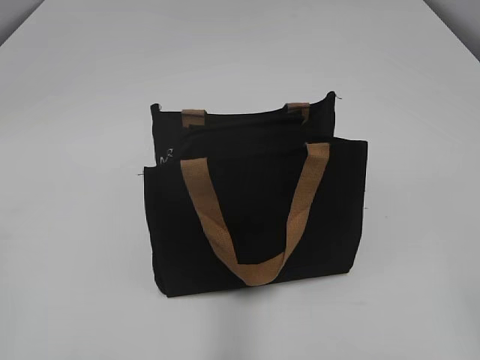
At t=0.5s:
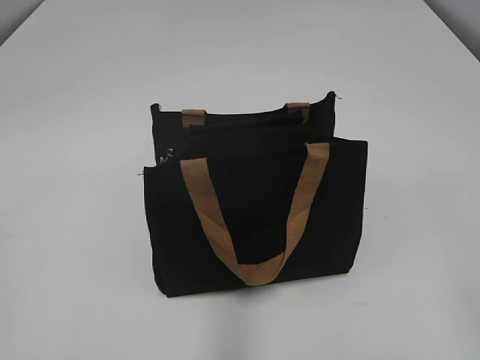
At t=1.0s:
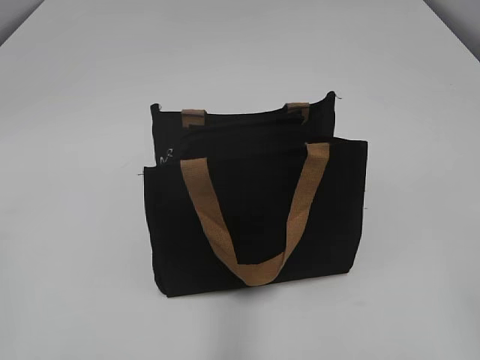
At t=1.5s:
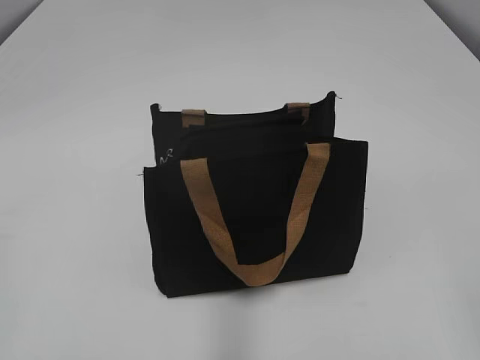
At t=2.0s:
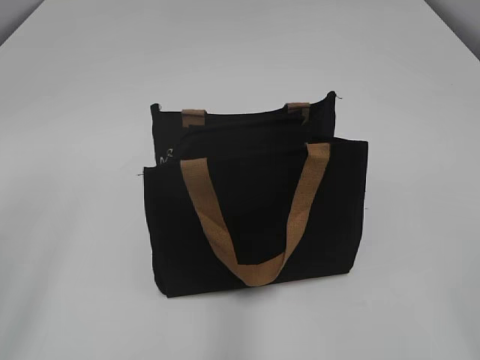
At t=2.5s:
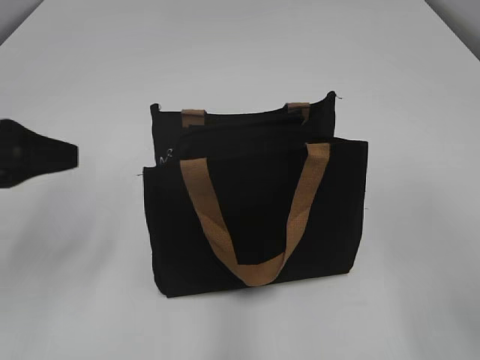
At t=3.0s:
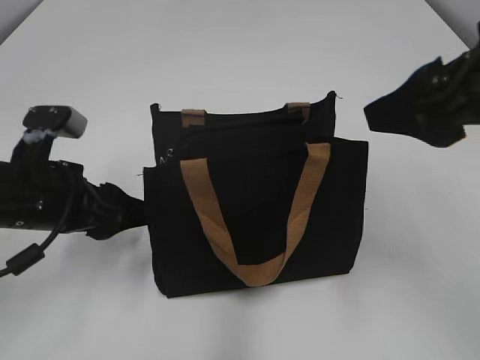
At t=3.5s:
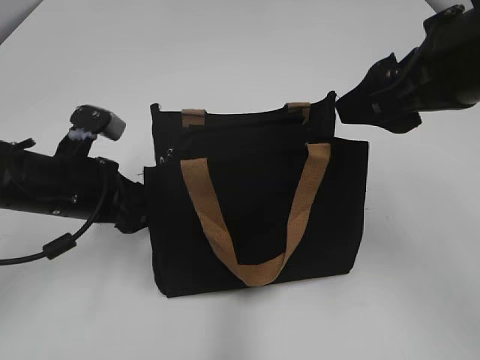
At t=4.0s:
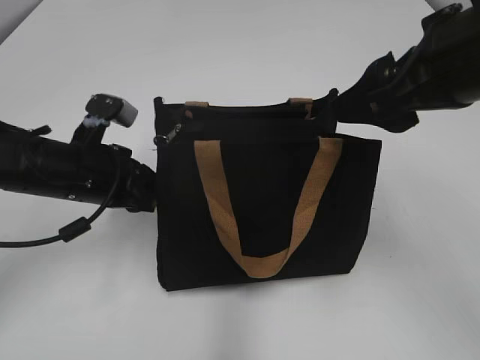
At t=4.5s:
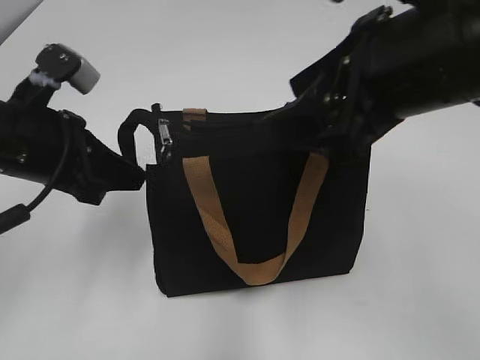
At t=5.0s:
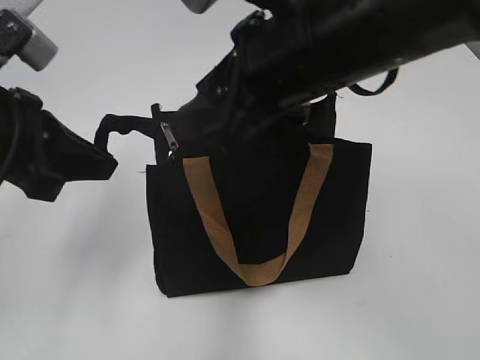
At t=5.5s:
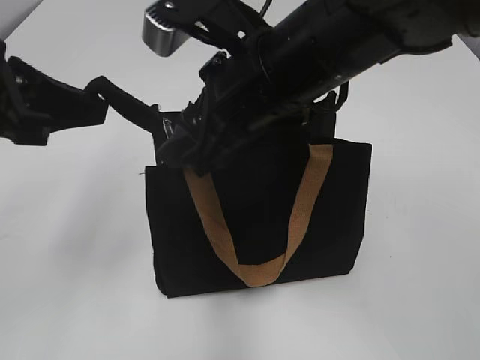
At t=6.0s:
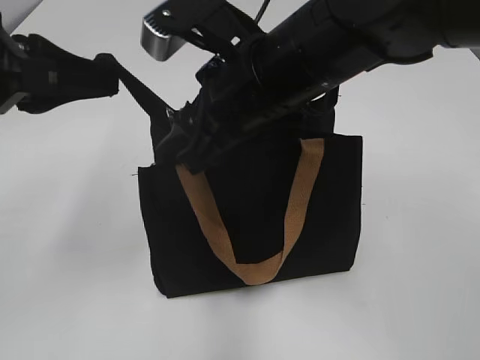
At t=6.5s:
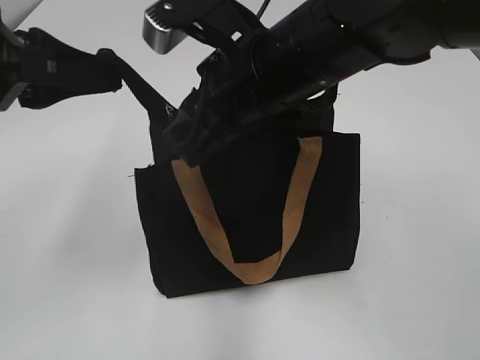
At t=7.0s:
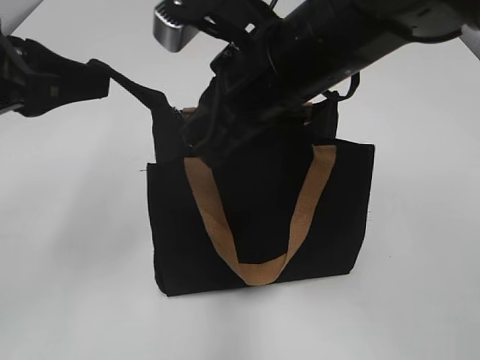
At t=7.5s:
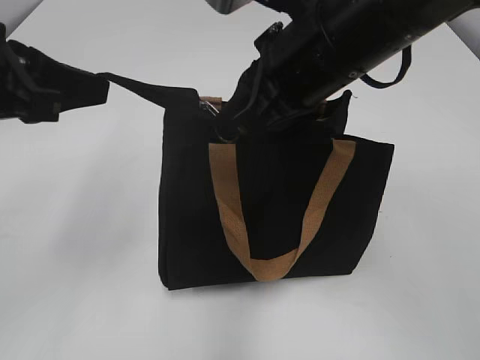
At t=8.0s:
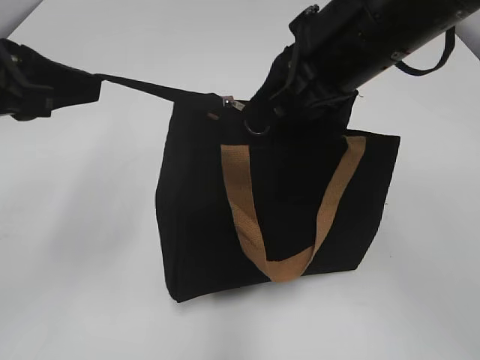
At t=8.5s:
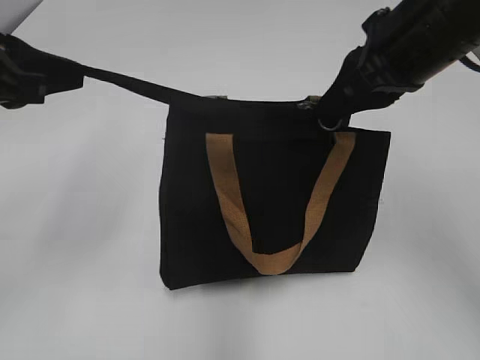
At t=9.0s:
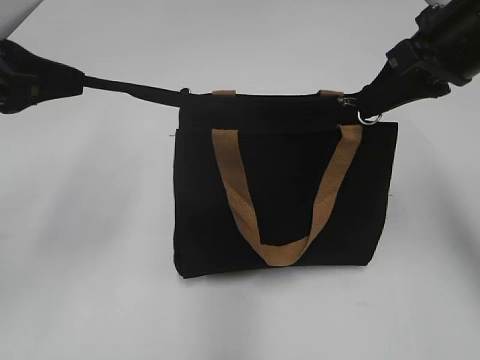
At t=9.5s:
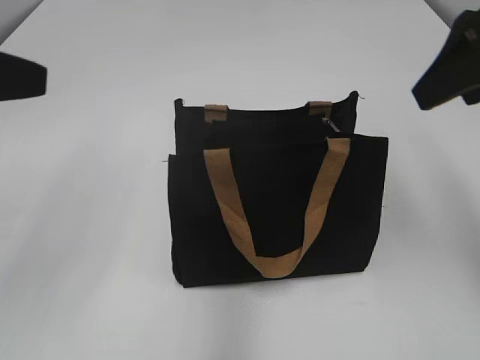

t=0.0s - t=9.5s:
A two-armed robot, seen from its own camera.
Step, t=0.0s - t=9.0s: Zip up the bag with your right hand.
t=2.0s - t=4.0s: The left gripper shifts approximately 30 cm forward, downward and to the right, and closes its fingers, while the right gripper travels forward and to the left by about 25 cm.
t=4.0s - t=5.5s: The left gripper shifts roughly 15 cm upward and backward; the right gripper is displaced to the left by some 15 cm.
t=5.5s - t=7.5s: The right gripper closes its fingers.
t=7.5s - t=9.5s: The left gripper ends up some 5 cm from where it was, and opens. The right gripper moves to the right, about 15 cm, and opens up.

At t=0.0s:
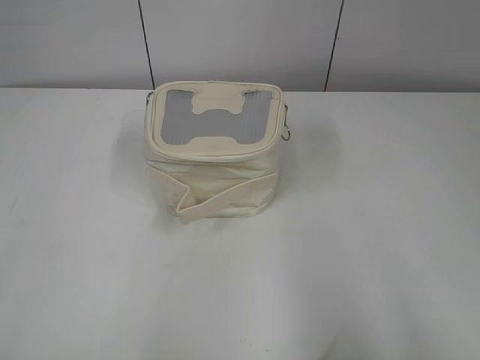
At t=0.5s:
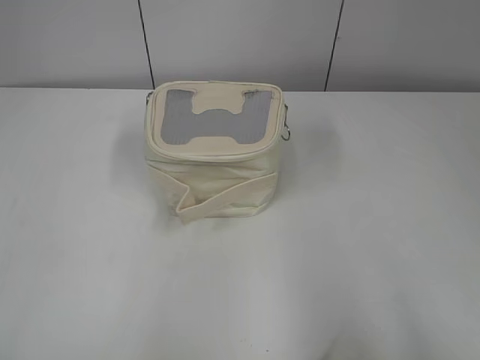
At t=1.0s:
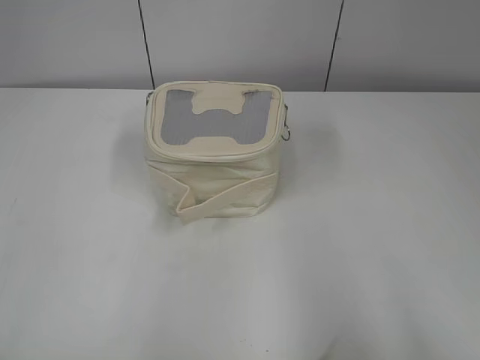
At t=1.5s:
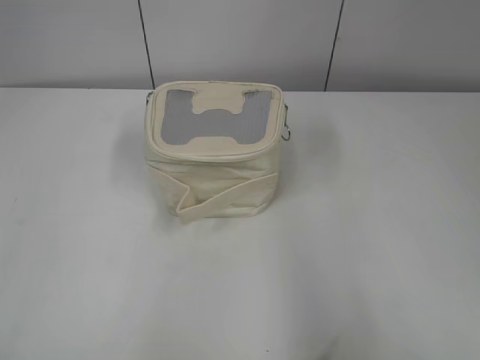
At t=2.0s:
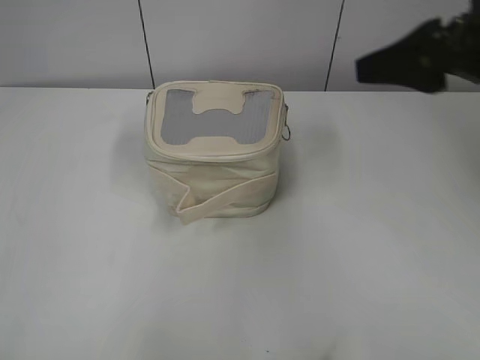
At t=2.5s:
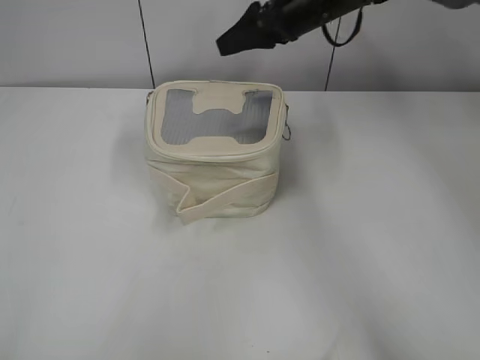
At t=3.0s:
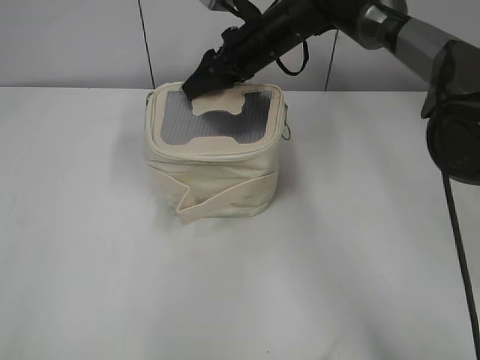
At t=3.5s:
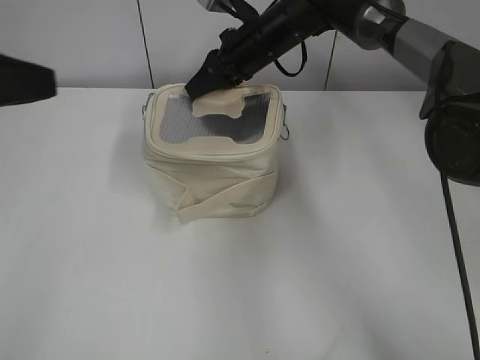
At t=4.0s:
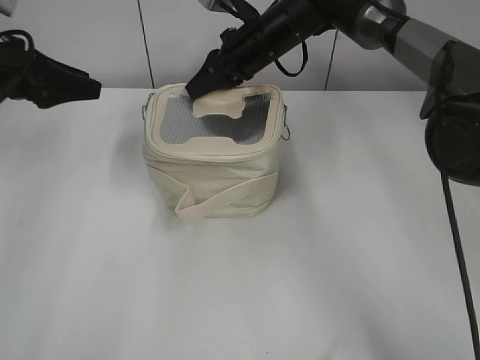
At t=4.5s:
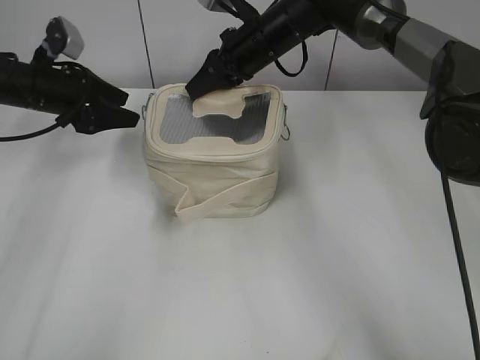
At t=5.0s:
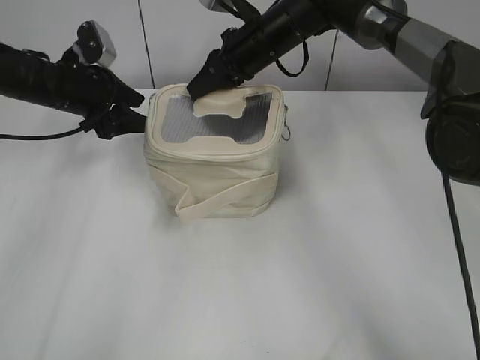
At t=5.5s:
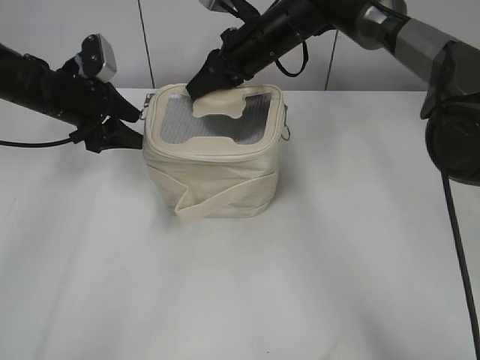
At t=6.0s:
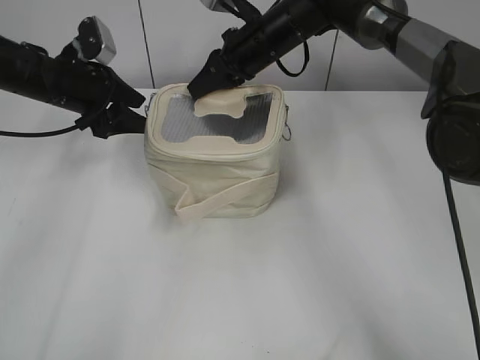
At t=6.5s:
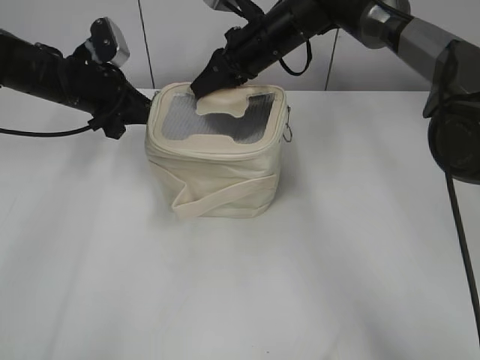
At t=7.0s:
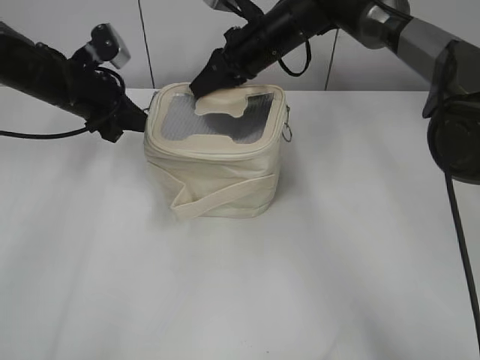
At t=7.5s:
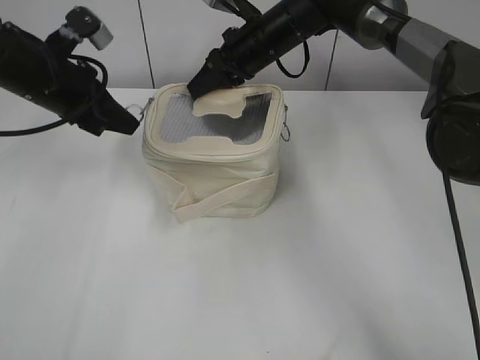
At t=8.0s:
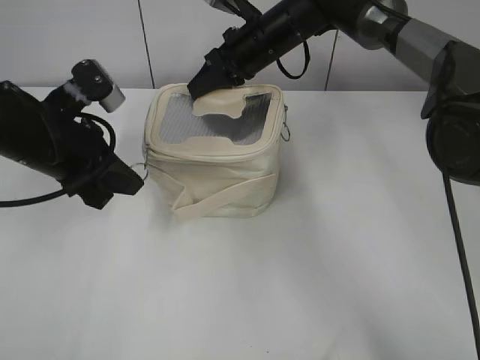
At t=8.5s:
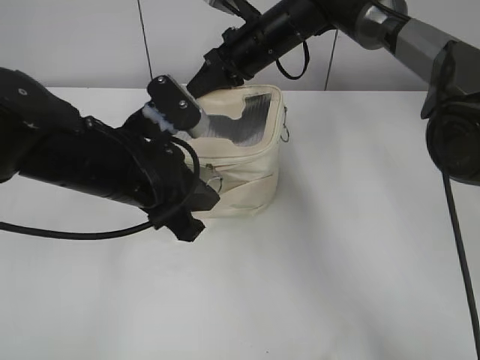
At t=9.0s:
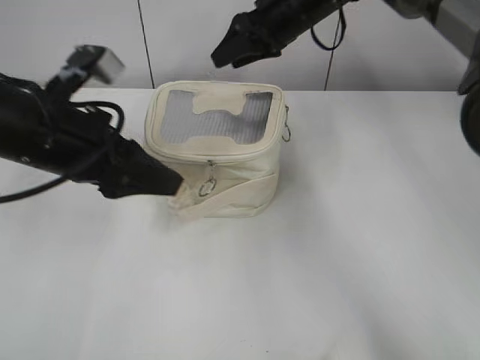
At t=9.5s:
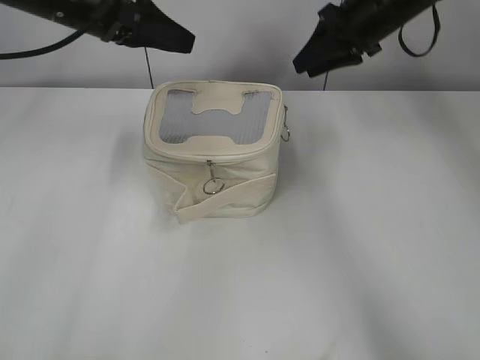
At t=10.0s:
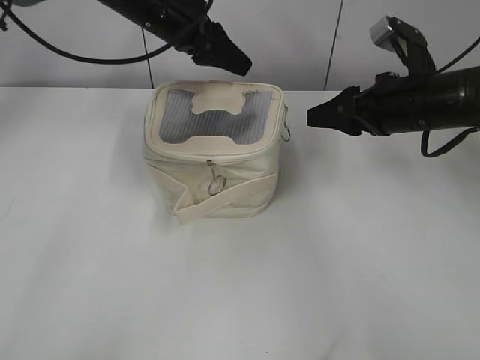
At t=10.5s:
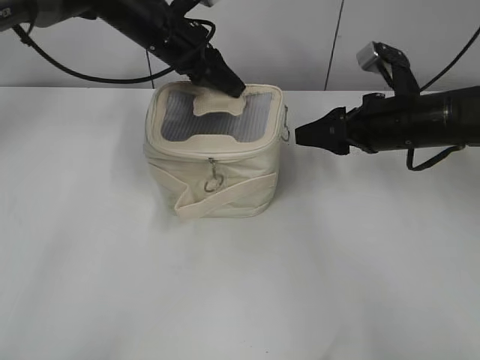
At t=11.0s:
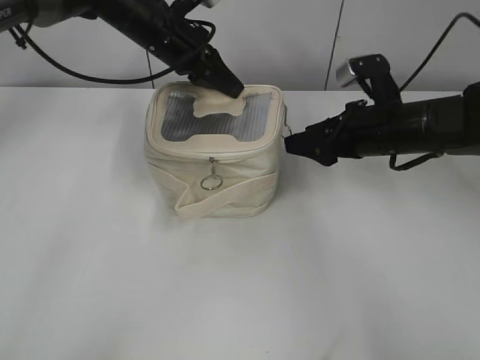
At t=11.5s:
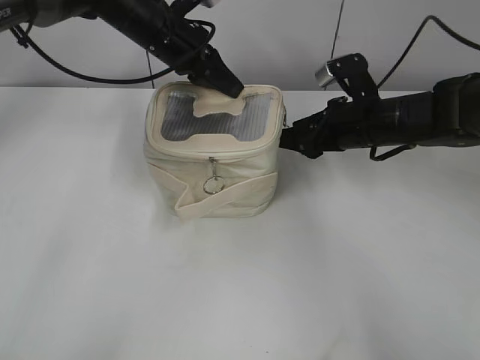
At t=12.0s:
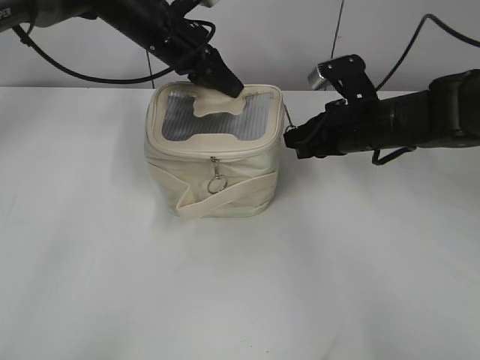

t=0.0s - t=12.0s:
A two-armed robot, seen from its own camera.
Step, t=0.0s - t=8.5s: Zip up the bag with your left hand.
t=2.0s - t=4.0s: The right gripper shifts about 30 cm forward, to the left and downward, and closes. Meanwhile the left gripper travels forward by some 40 cm.
t=4.0s - t=6.0s: The left gripper goes some 10 cm to the right, downward and forward.
t=6.0s - t=8.0s: The left gripper goes some 15 cm backward, and closes up.
t=8.0s - t=10.0s: The right gripper shifts approximately 20 cm to the right and backward, and opens its fingers; the left gripper is displaced forward and to the right by about 20 cm, and opens its fingers.
t=10.0s - t=12.0s: The right gripper shifts roughly 5 cm downward, and closes; the left gripper closes.

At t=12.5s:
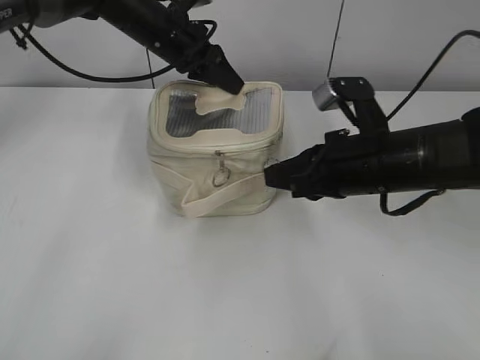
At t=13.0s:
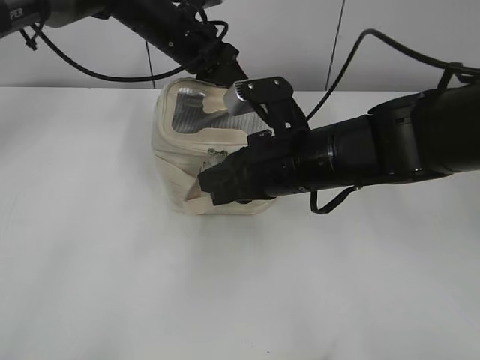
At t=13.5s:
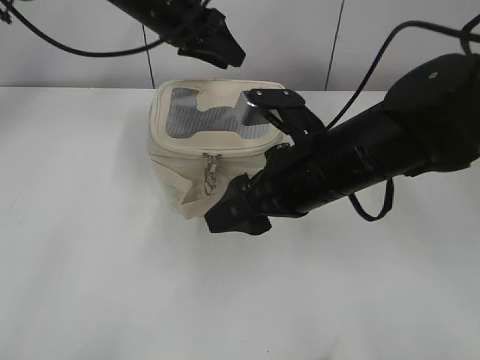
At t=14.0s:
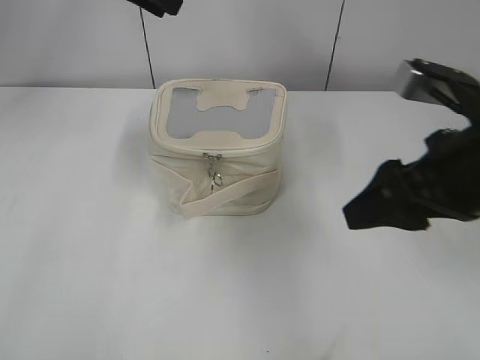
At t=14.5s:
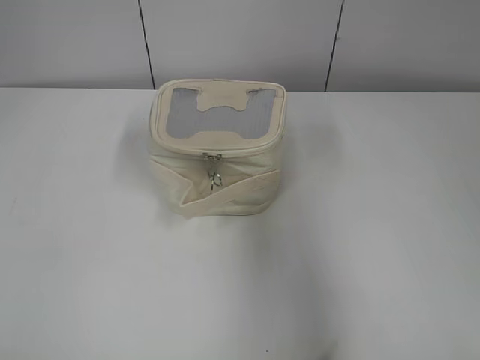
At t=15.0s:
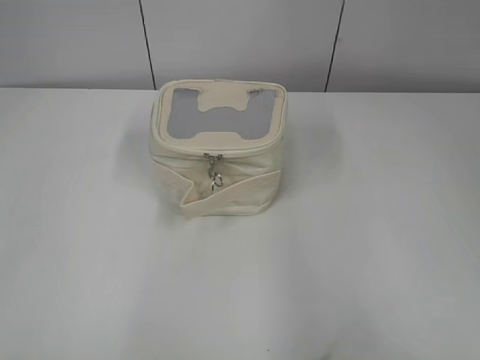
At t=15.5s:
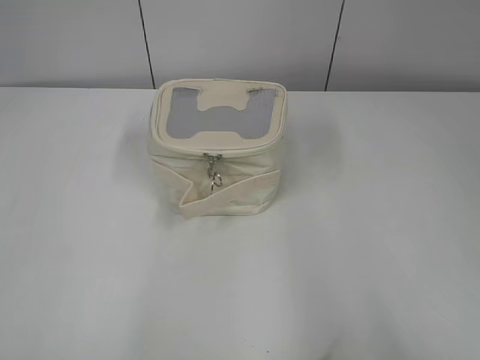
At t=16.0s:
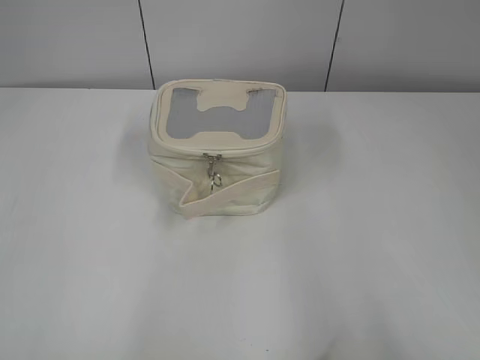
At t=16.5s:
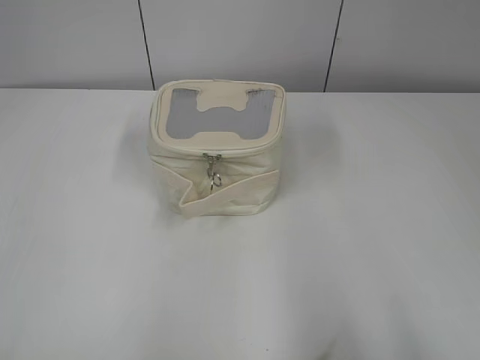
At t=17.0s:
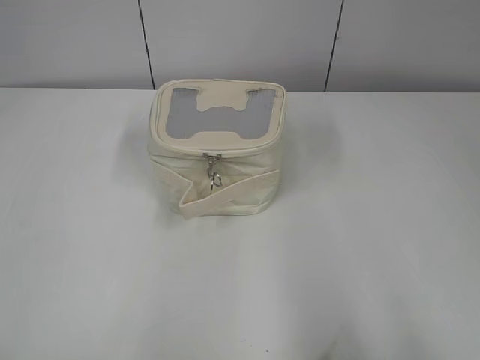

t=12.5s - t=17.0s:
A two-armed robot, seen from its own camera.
t=12.5s - t=14.5s: The right gripper travels backward, upward and to the right by roughly 25 cm, and opens its fingers. Meanwhile the left gripper heads backward, to the left and upward, covering about 40 cm.
t=14.5s - t=17.0s: The right gripper heads backward, covering about 10 cm. Meanwhile the left gripper travels backward and downward by roughly 20 cm.
